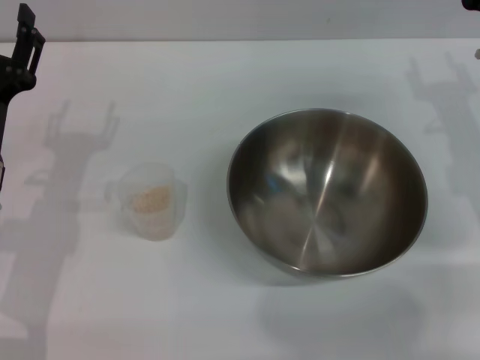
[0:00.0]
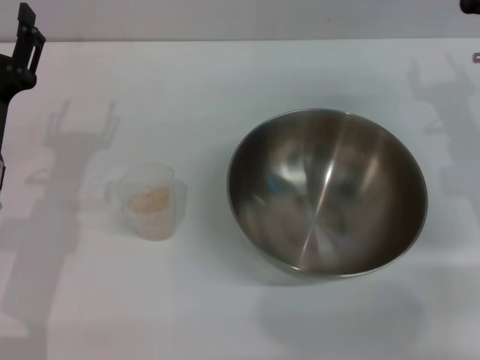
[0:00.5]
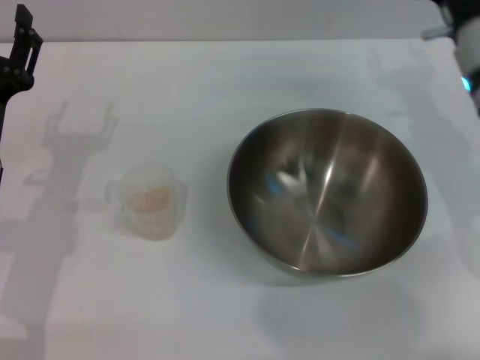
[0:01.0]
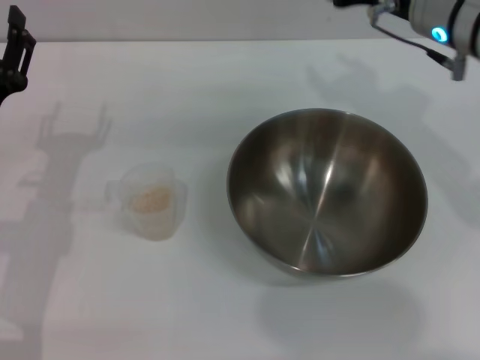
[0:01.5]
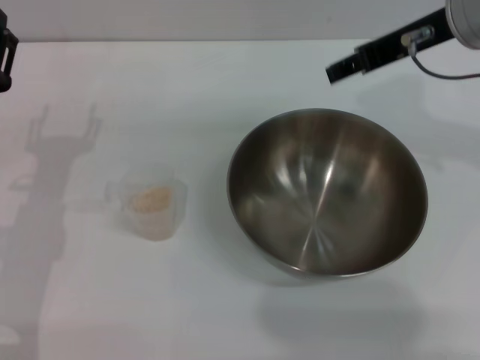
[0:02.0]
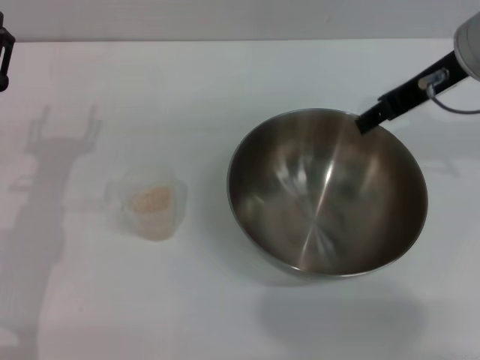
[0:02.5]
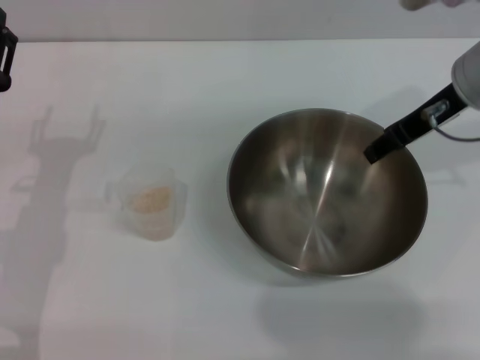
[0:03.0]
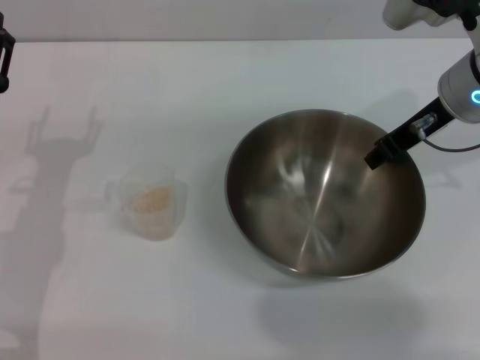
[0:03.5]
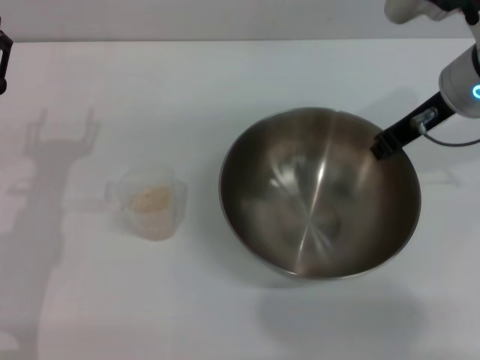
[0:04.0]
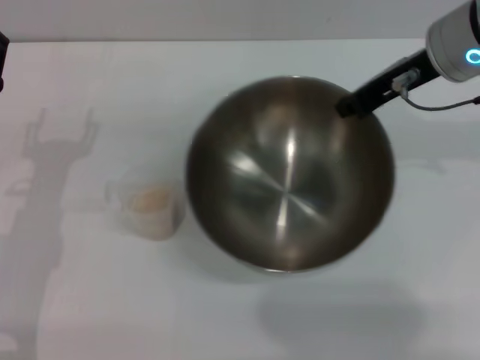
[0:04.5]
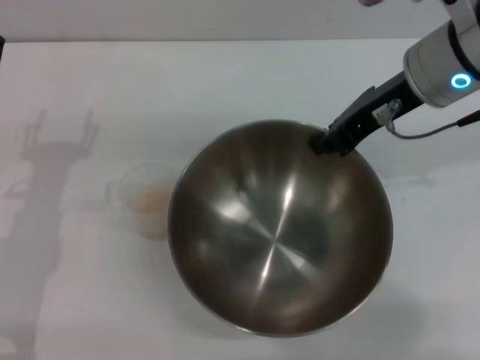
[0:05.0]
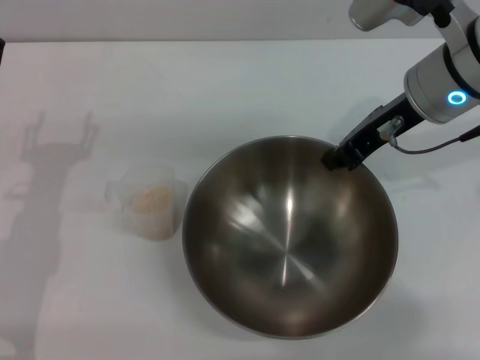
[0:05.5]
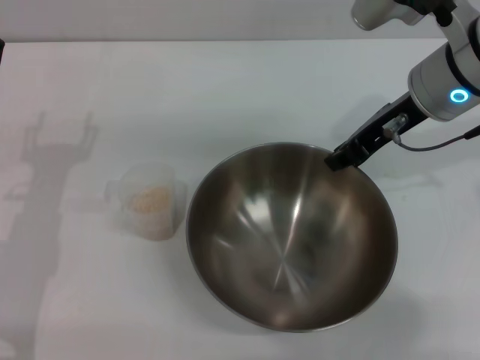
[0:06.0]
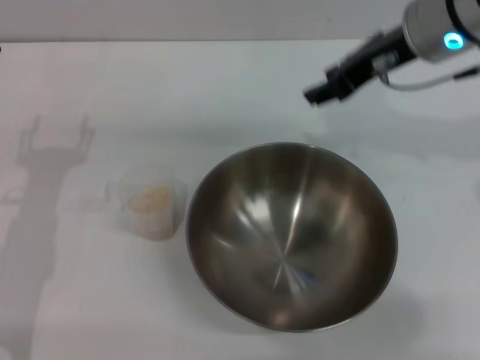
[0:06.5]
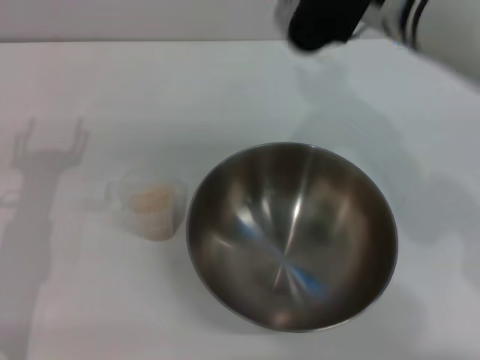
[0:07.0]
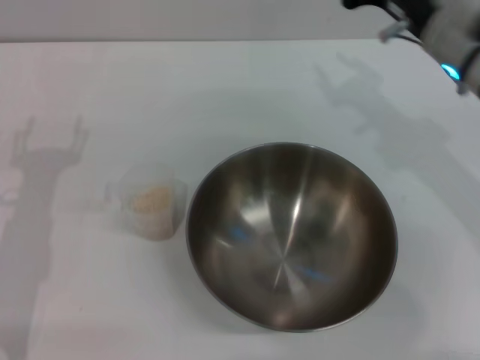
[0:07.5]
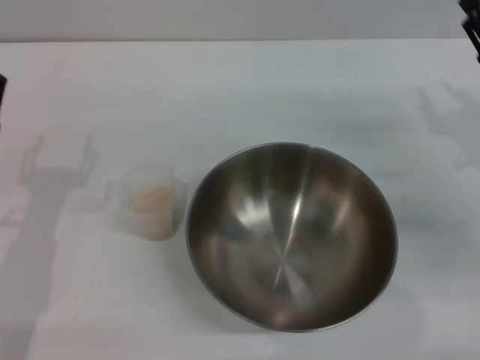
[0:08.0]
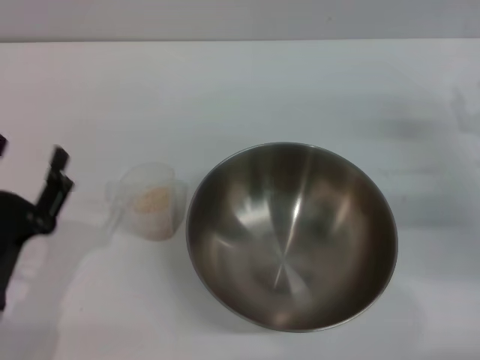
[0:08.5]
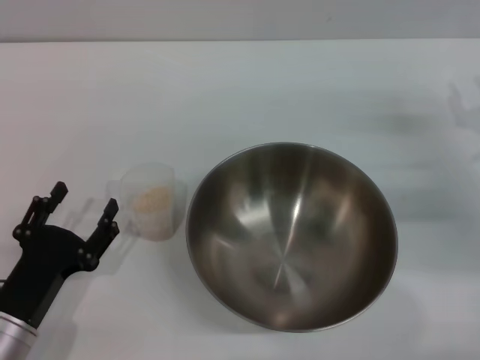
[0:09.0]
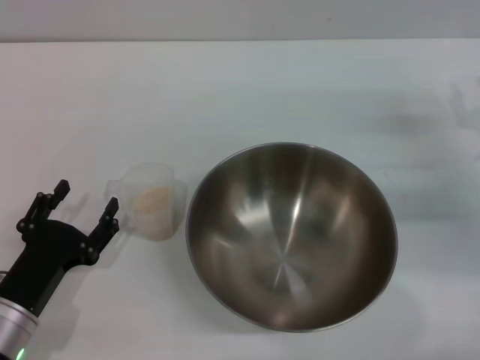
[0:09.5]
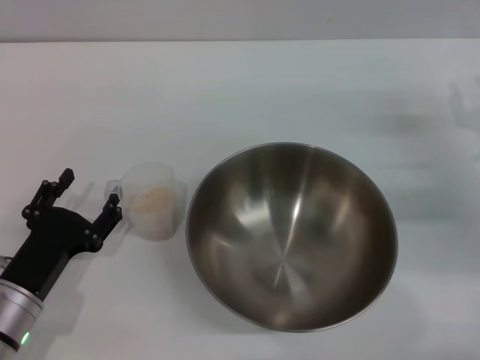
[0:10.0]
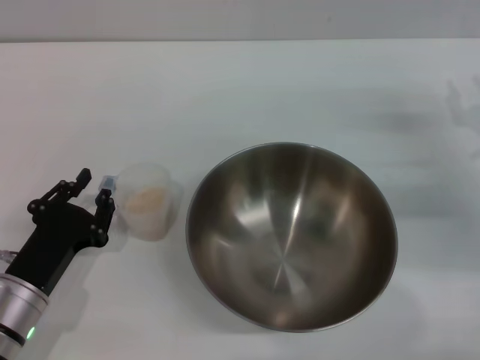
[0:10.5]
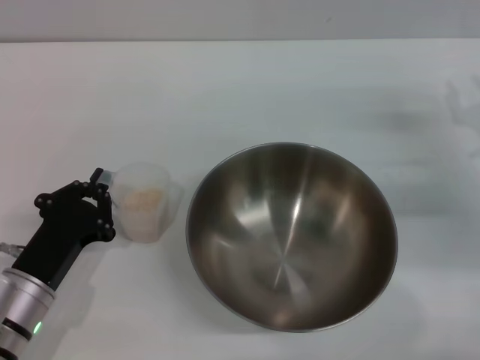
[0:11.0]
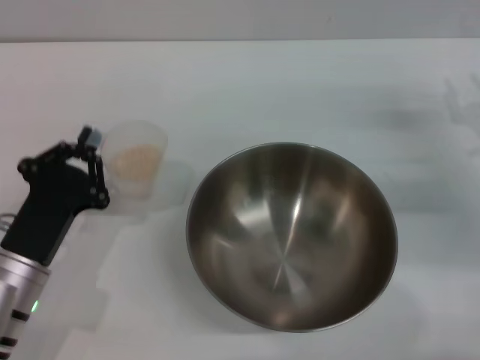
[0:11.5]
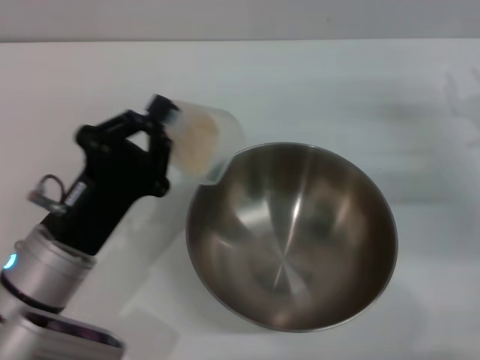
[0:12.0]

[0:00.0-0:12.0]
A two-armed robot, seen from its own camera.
Task of the whole recording: Place the bowl in the middle of the table with one hand and pour the rice from the grain cup into it with the other hand.
Step, 0:00.0 to 0:04.5: Pick up the bowl with the right gripper.
Step, 0:05.0 to 0:06.0: Place the bowl in the center of view with the right gripper.
Step, 0:06.5 to 0:11.0: Pick up the cup with rice in it with the left gripper.
0:00.0 to 0:02.0: The right gripper moves upward and to the left, approximately 15 cm.
0:02.0 to 0:04.0: The right gripper moves downward, some 5 cm, and closes.
0:06.0 to 0:08.0: The right gripper shifts some 20 cm to the right, downward and backward, and opens up.
0:08.0 to 0:10.0: The left gripper heads downward, covering roughly 5 cm.
0:10.0 to 0:12.0: The left gripper goes about 10 cm upward and to the right, and closes its fingers.

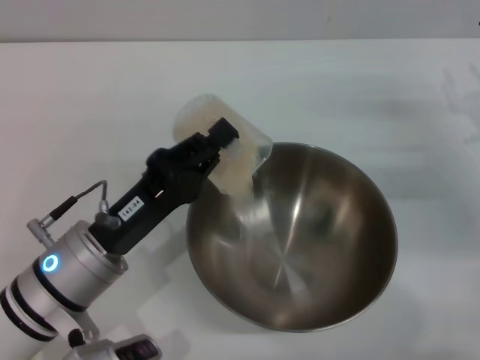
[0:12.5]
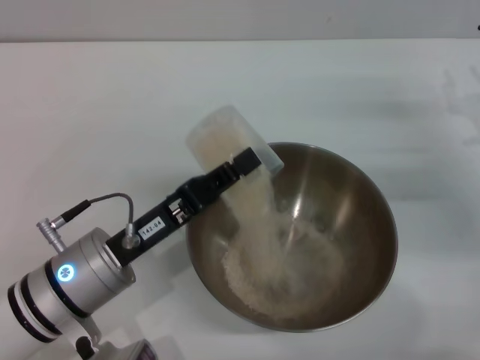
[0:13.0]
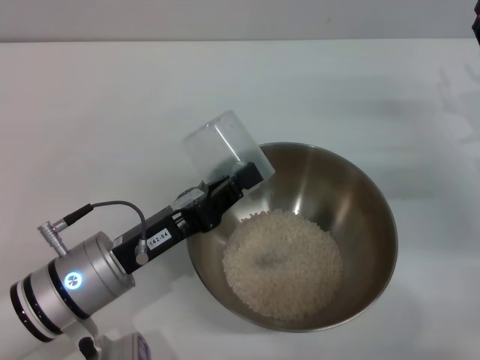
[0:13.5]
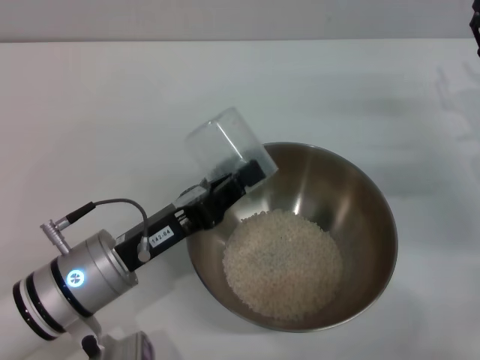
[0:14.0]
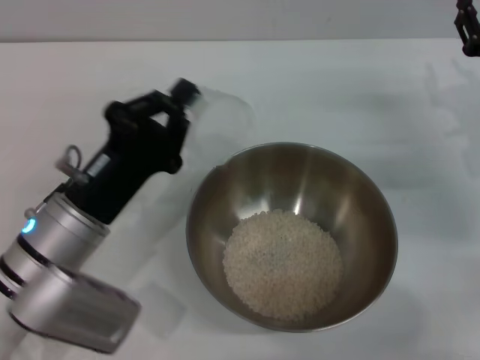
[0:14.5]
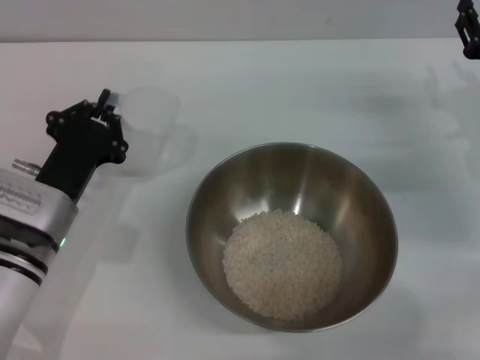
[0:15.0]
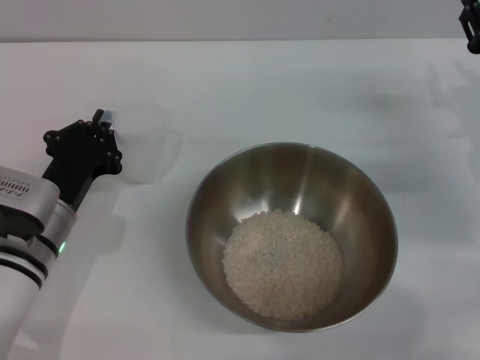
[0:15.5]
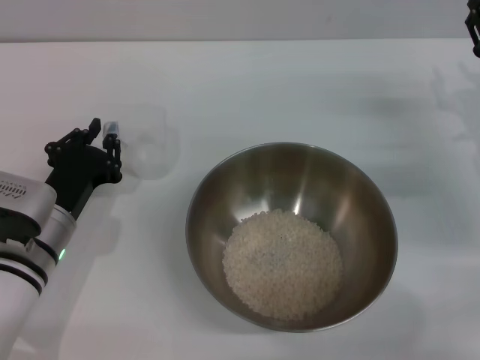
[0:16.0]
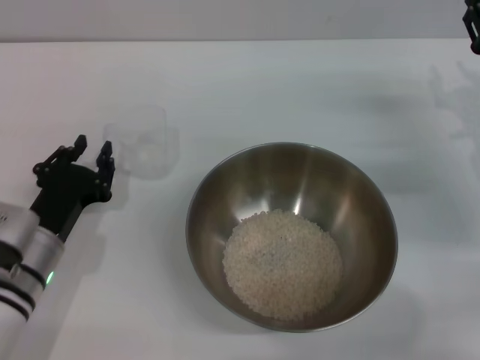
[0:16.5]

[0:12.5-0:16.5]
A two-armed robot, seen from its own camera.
Task of the whole recording: Place the bowl in the middle of the table with one hand and pour the rice from the grain cup into it with the other hand.
Step, 0:14.0 to 0:16.0: Place the cup on the table with the left gripper.
0:14.5 to 0:16.5: The left gripper moves downward, some 5 cm.
